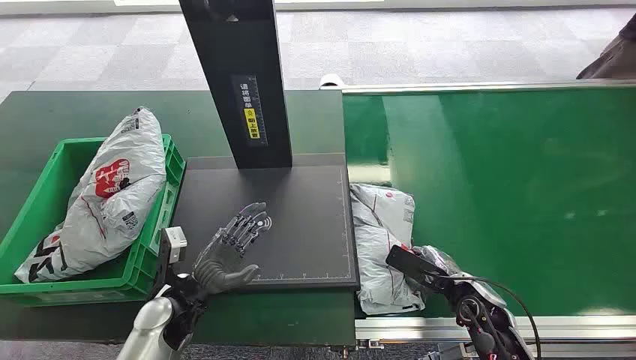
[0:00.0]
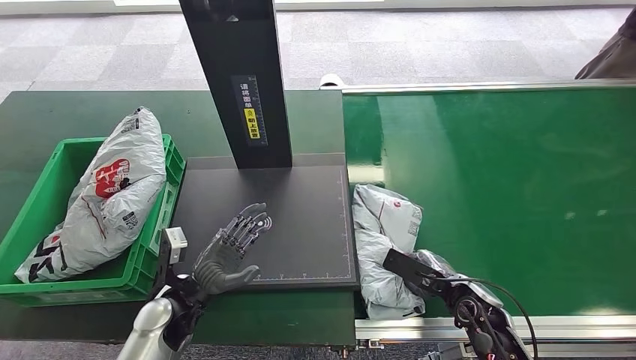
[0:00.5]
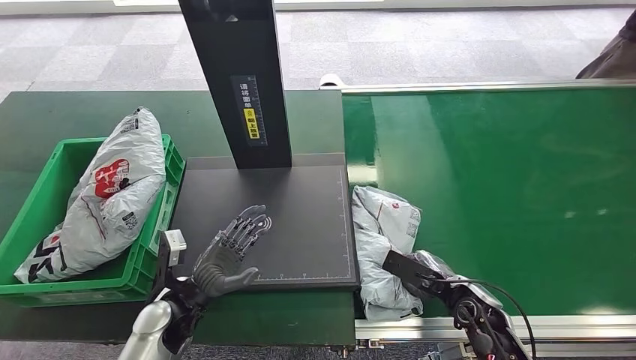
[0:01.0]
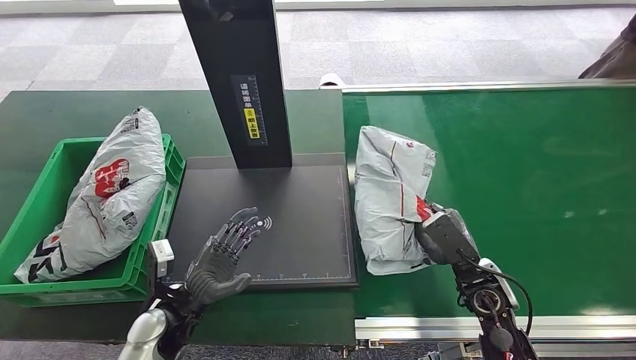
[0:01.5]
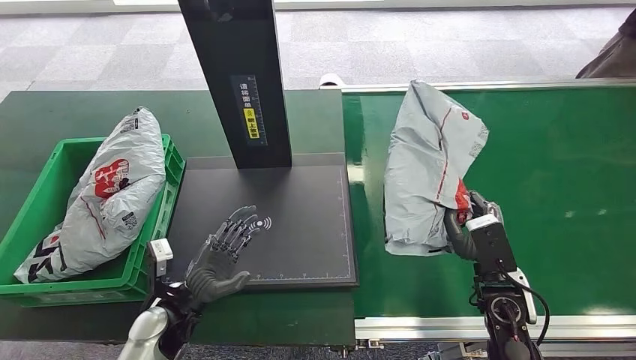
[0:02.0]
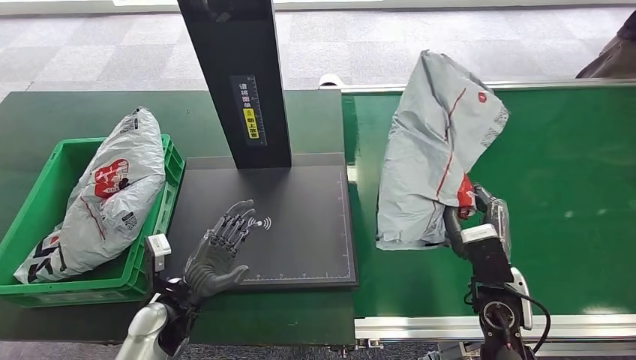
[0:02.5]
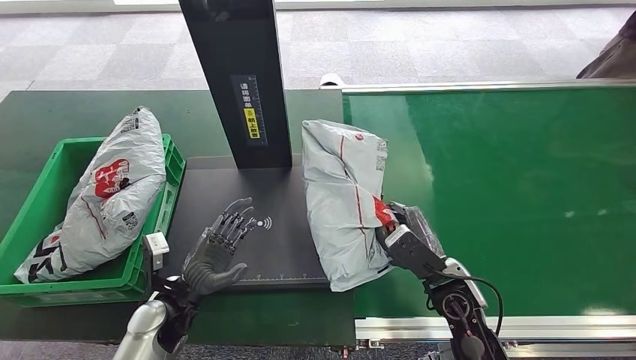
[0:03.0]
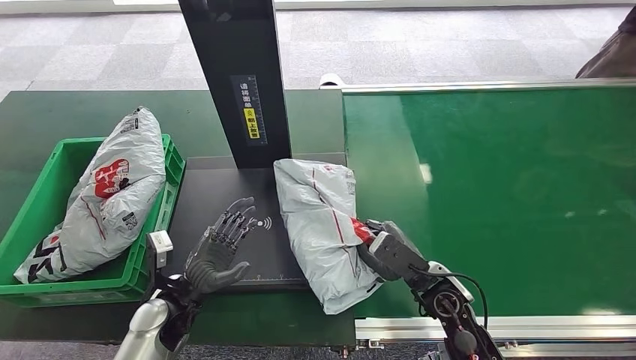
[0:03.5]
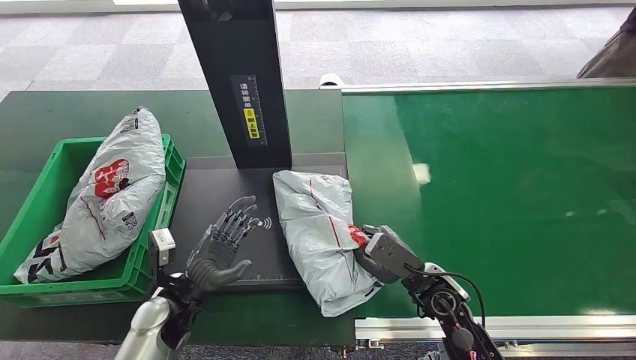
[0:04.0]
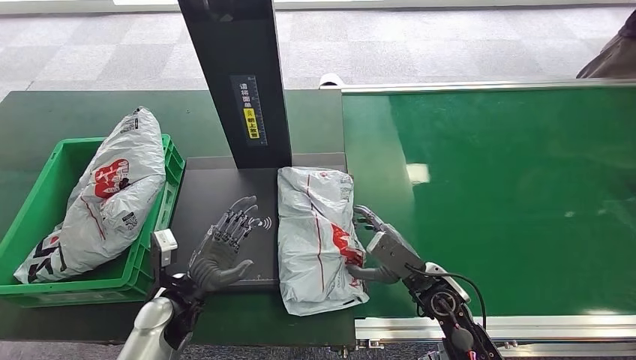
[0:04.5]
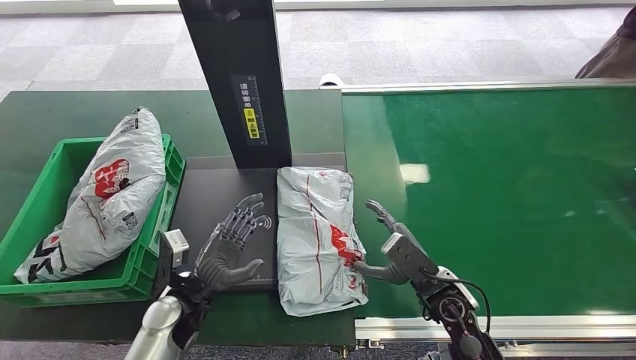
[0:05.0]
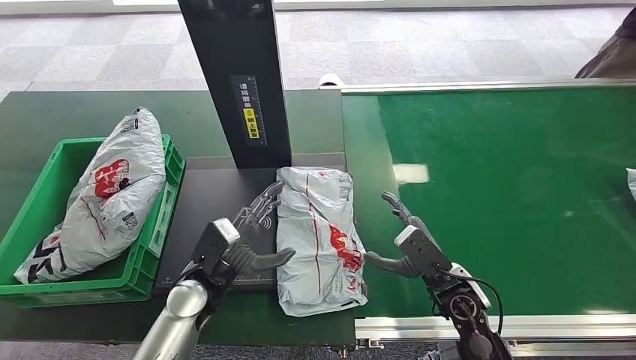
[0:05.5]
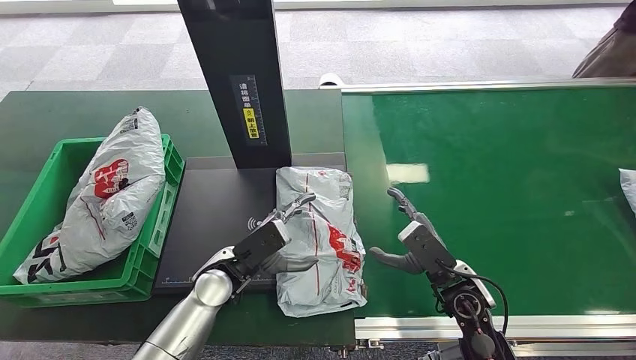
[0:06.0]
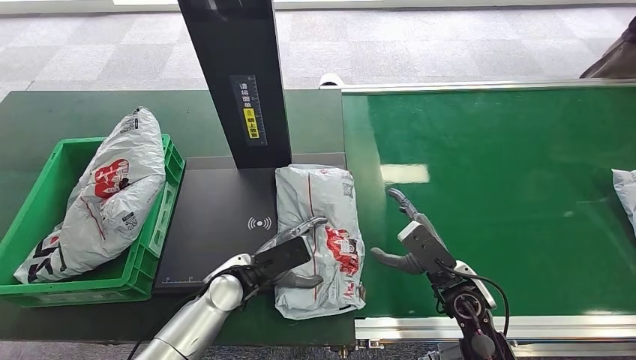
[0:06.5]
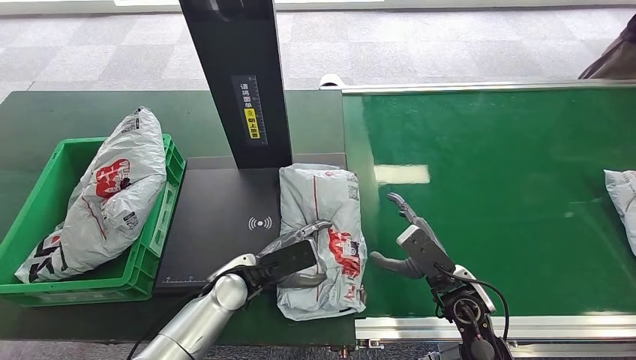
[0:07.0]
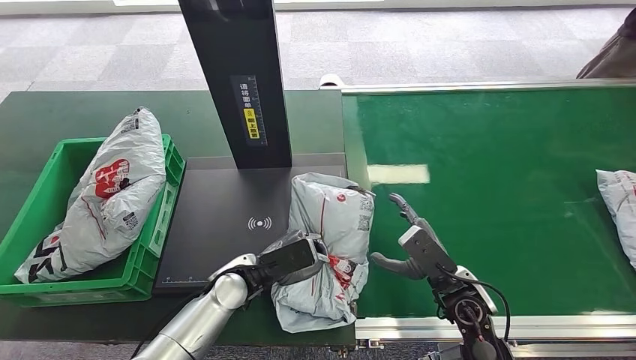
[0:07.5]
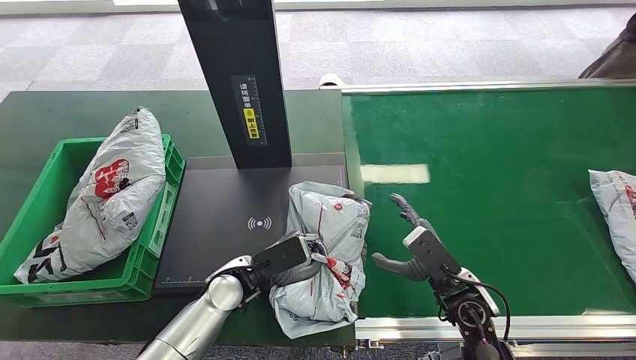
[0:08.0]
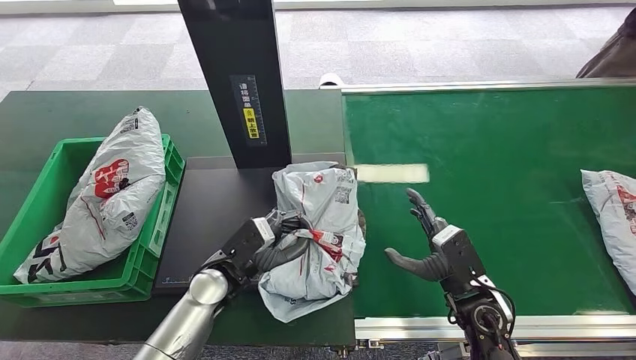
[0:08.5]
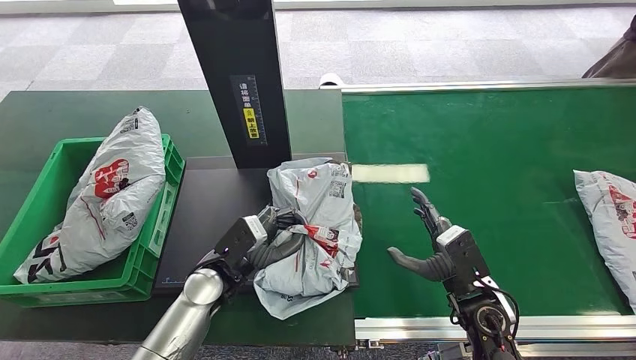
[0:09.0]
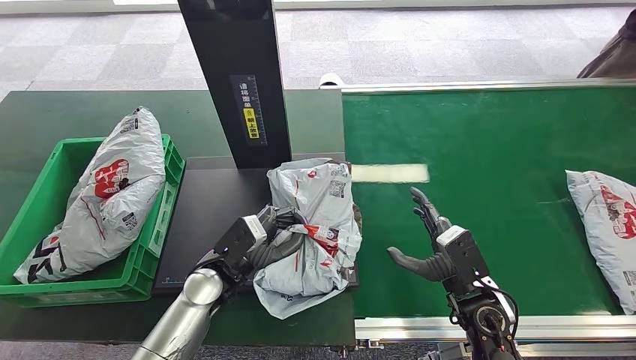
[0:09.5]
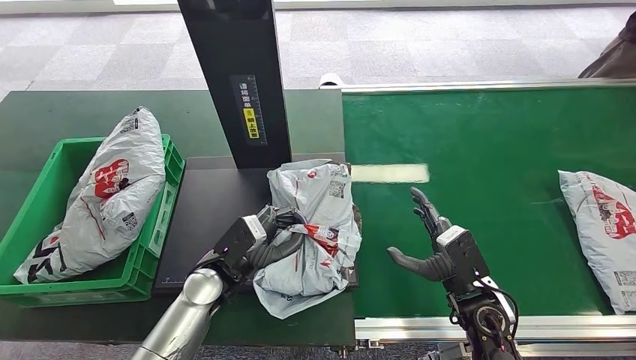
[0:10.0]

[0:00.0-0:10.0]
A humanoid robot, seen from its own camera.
Step, 0:00.0 to 0:01.5: Pick up the package from the conveyor belt.
Step, 0:02.0 to 0:05.0: Place the package onto the inbound machine.
0:02.0 to 0:04.0: The right hand goes about 10 cm to the left.
0:04.0 to 0:06.0: The left hand moves to the right, roughly 5 cm.
0:06.0 to 0:08.0: There are only small adjustments of the hands.

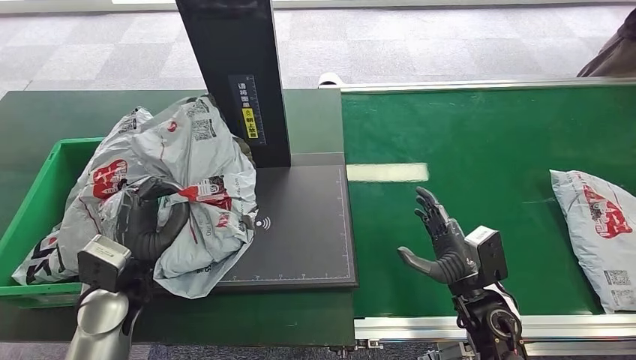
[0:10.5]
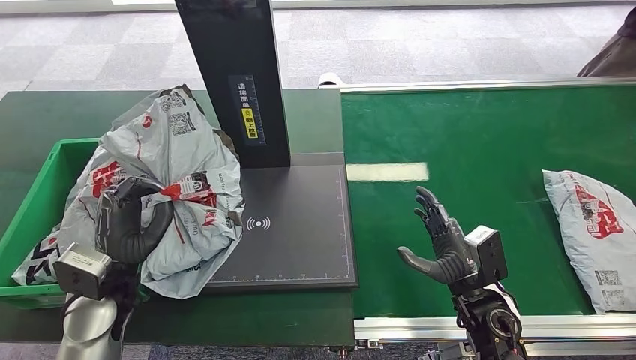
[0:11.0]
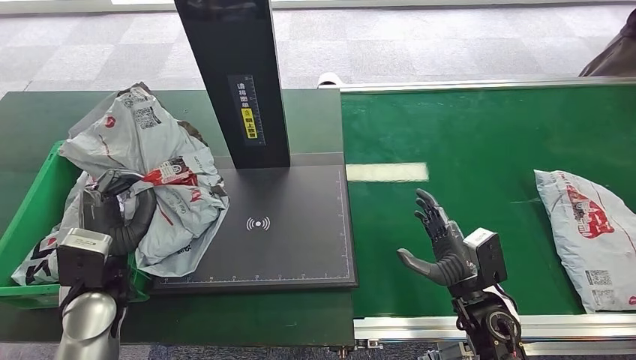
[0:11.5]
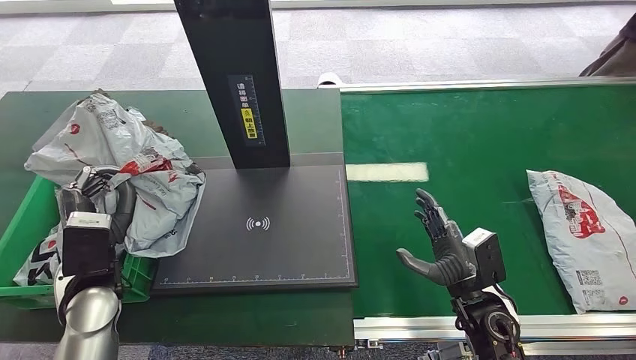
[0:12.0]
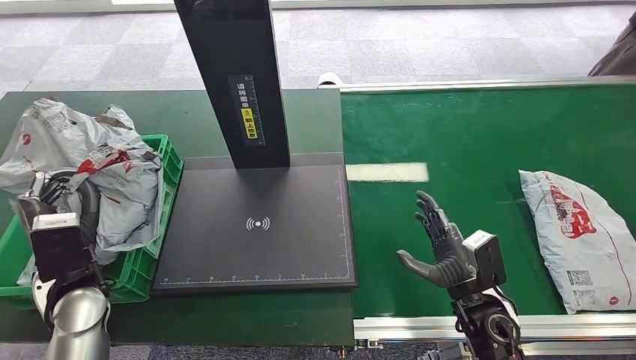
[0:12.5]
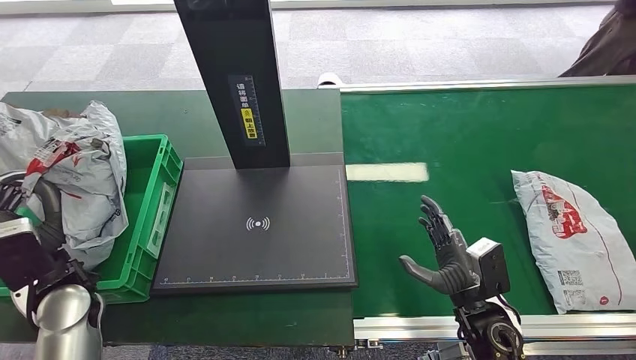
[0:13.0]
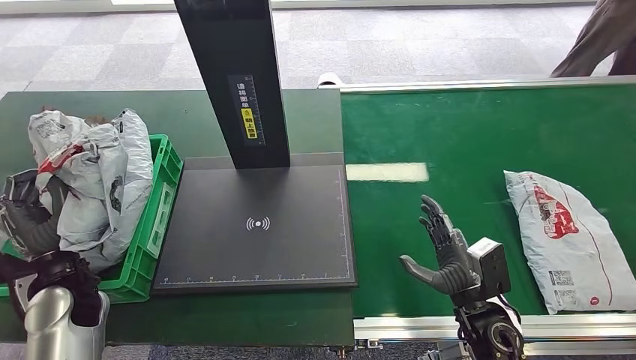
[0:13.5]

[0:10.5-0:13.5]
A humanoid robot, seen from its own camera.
Step, 0:11.0 to 0:13.5: Place the package into the parcel locker.
